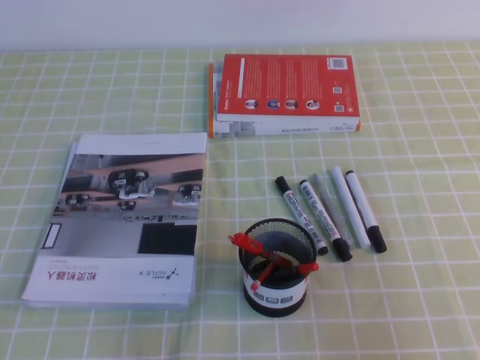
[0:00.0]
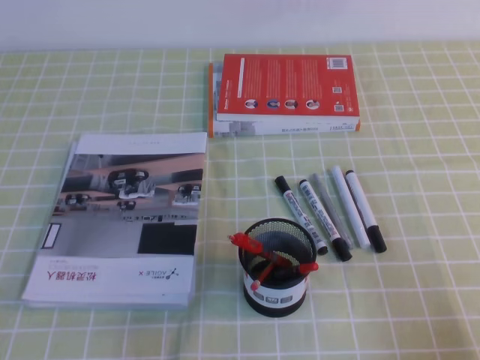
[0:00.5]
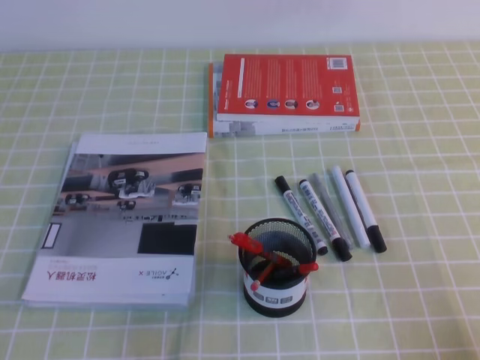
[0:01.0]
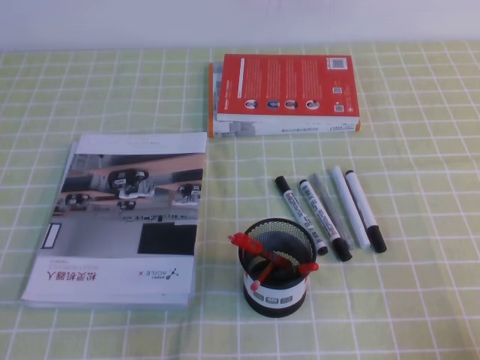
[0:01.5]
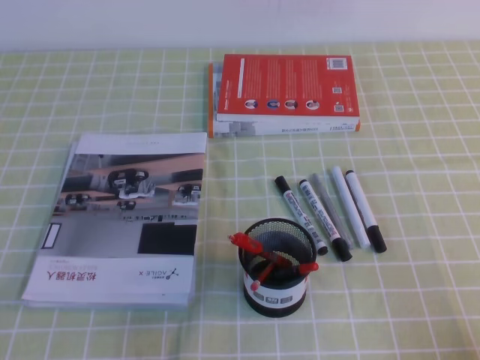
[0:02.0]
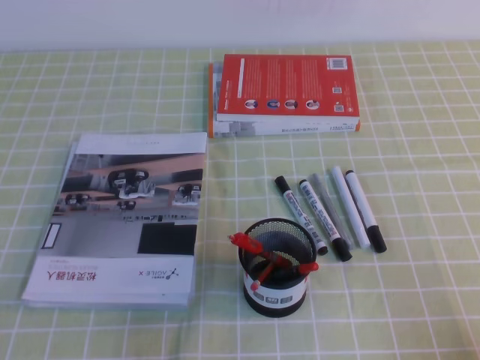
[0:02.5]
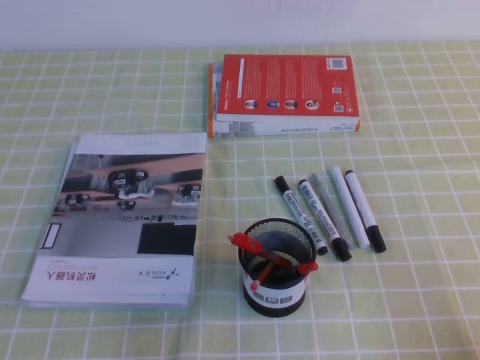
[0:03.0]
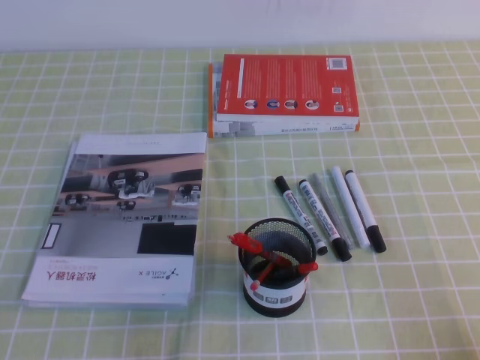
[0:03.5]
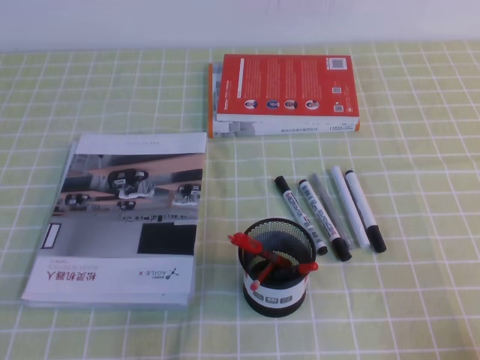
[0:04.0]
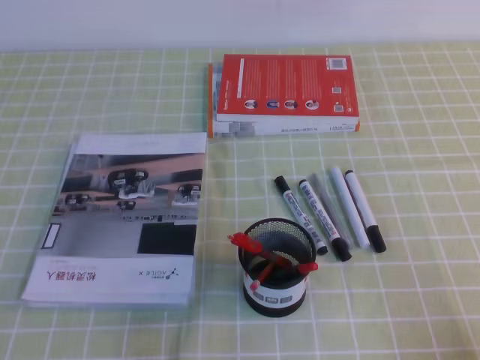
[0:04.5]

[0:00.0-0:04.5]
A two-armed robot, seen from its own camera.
Step, 0:00.0 to 0:04.5: Pick up the pen from the pen holder.
0:00.0 to 0:02.0: The right gripper shifts some 10 cm downward.
0:02.0 to 0:04.5: Both grippers stay about where they are.
